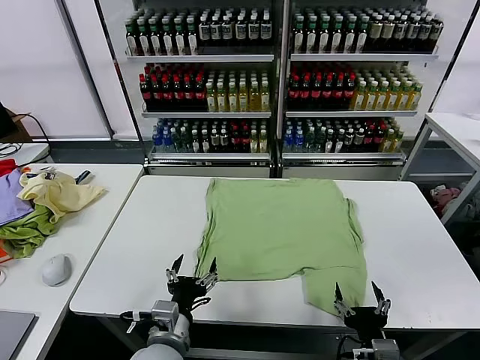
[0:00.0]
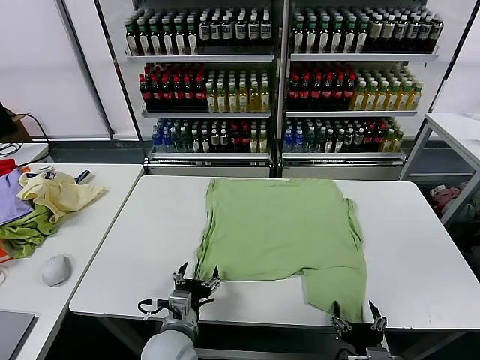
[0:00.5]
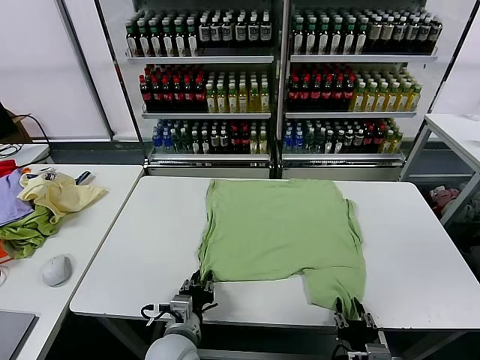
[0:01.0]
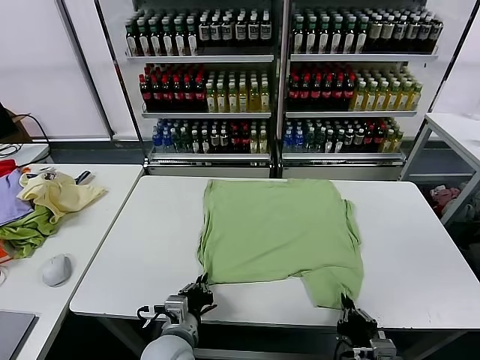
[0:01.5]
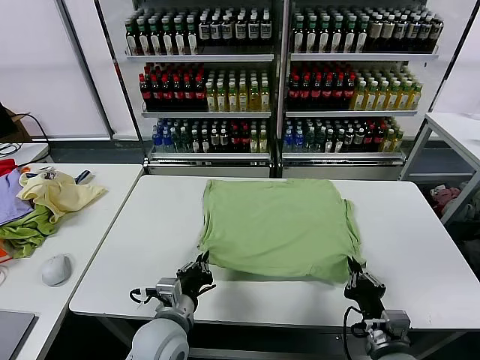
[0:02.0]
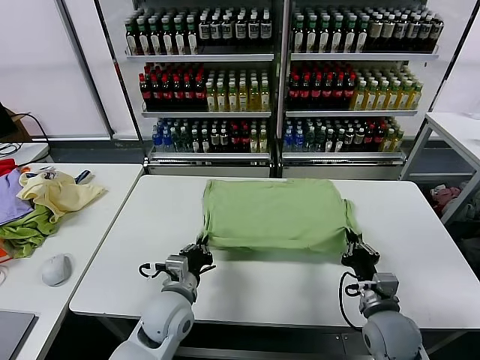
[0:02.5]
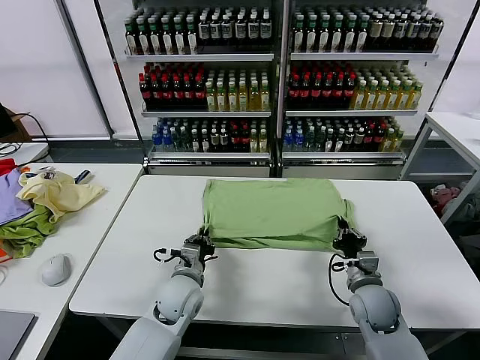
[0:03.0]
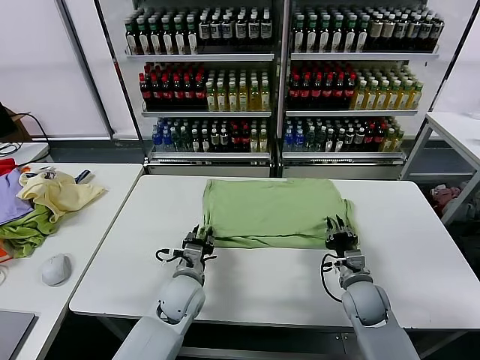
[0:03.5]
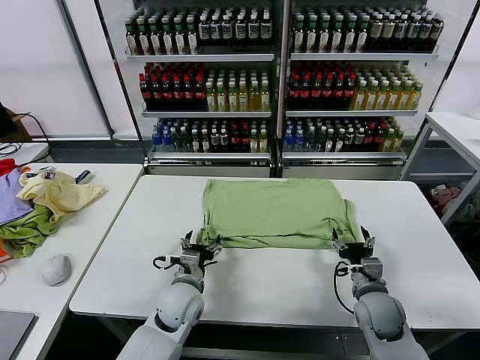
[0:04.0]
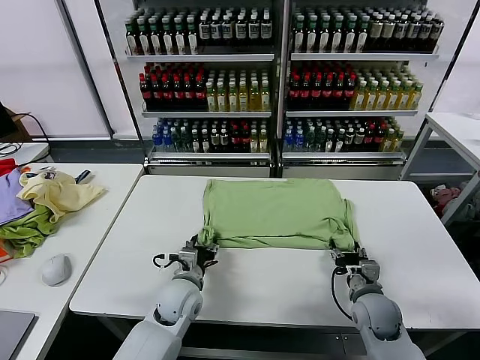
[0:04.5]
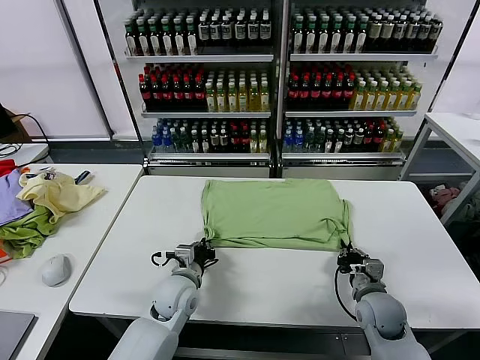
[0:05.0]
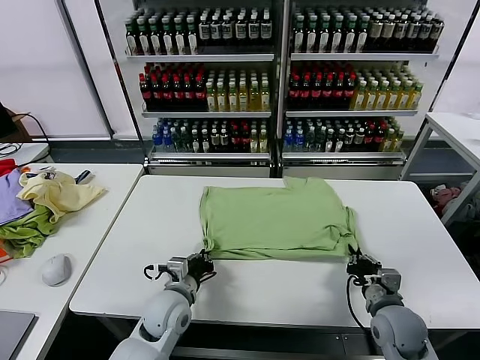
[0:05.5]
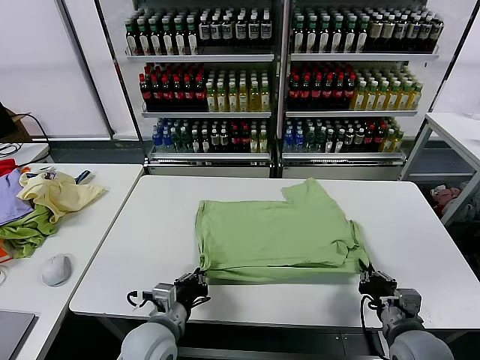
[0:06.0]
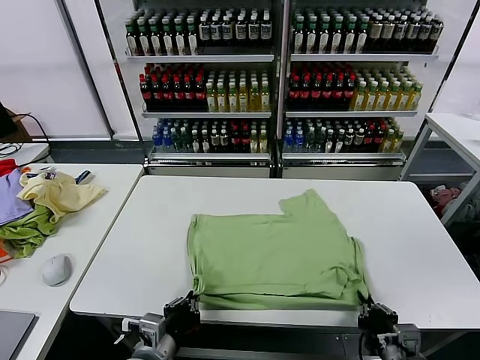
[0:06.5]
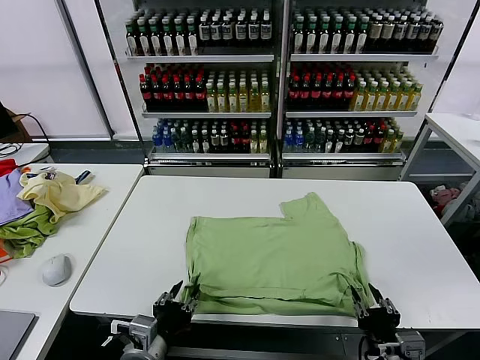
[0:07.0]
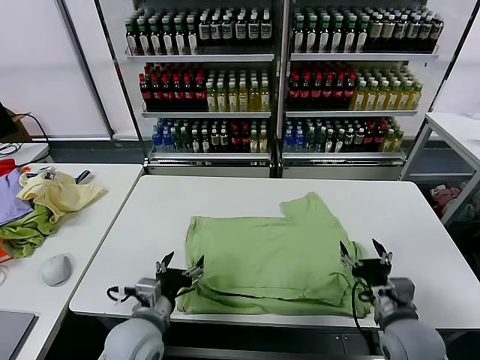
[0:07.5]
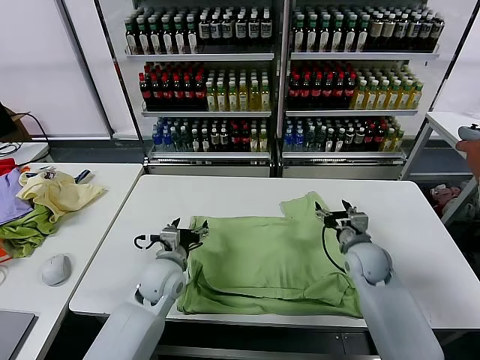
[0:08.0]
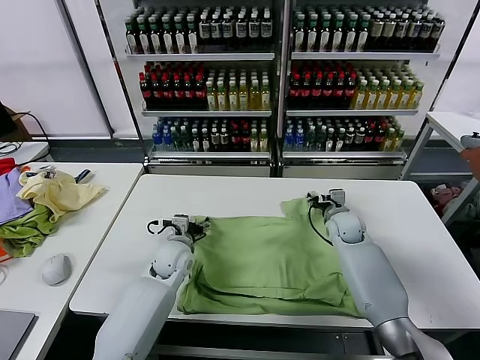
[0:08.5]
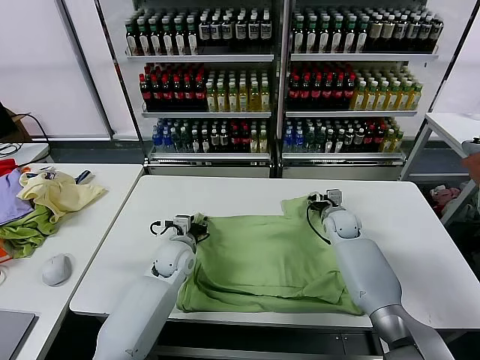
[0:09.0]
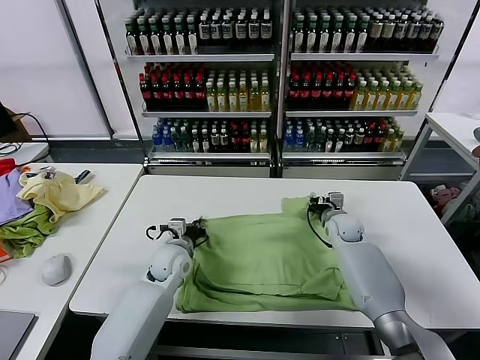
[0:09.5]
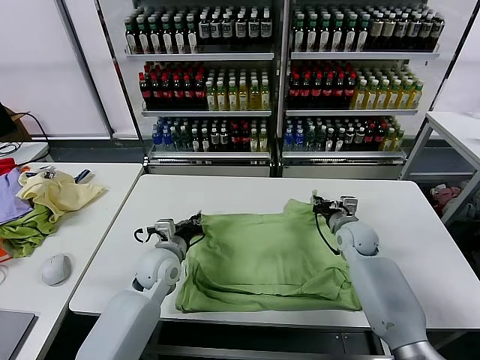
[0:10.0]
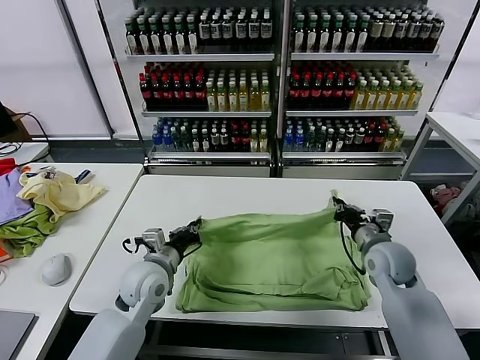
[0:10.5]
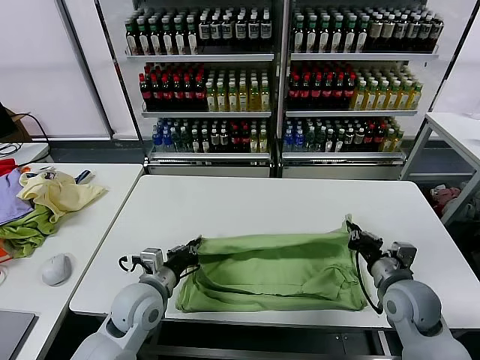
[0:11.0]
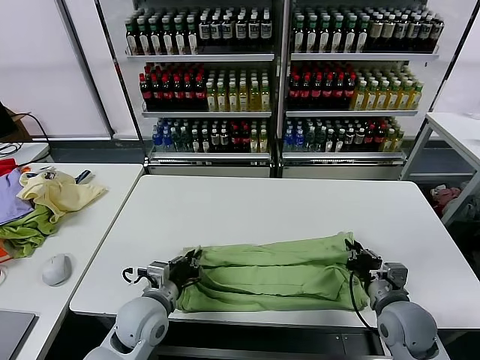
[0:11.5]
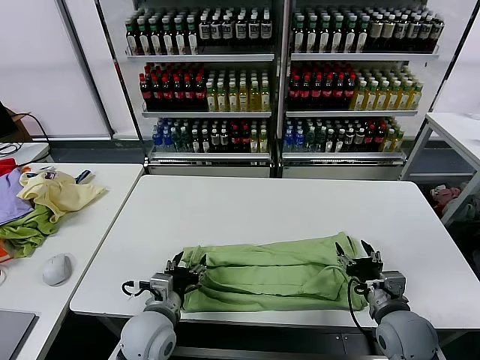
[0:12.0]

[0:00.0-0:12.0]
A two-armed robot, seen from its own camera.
Task of the whole recording: fold and organize the clothes.
Step, 0:00.0 to 0:01.0: use both grippers simultaneously to clamp the lower edge of the clothing fabric.
Step, 0:01.5 to 0:03.5: use both grippers to drag the lower edge of the fabric forward and fold it over the upper edge.
Step, 0:04.0 to 0:07.0: Drag the clothes downward with both gripper.
Step, 0:07.5 to 0:09.0: use both grippers simultaneously to clamp the upper edge of the clothing fabric.
Step, 0:09.5 to 0:11.5: use both grippers to drag the upper edge of the fabric backward and fold it over the lower edge.
0:02.0 to 0:04.0: The right gripper travels forward by some 10 cm, and opens its fingers. The left gripper goes approximately 10 cm forward and downward, and opens.
0:04.0 to 0:06.0: The two grippers go approximately 10 cm backward. The right gripper closes. Meanwhile the left gripper closes up.
0:06.0 to 0:08.0: The left gripper travels forward by approximately 15 cm, and opens up, while the right gripper shifts about 25 cm forward, and opens.
0:08.0 to 0:10.0: The left gripper closes its fingers; the right gripper reaches some 10 cm forward, then returns, and closes its fingers.
0:10.0 to 0:12.0: The right gripper goes some 20 cm backward, and opens. Meanwhile the left gripper heads backward, covering approximately 15 cm, and opens up.

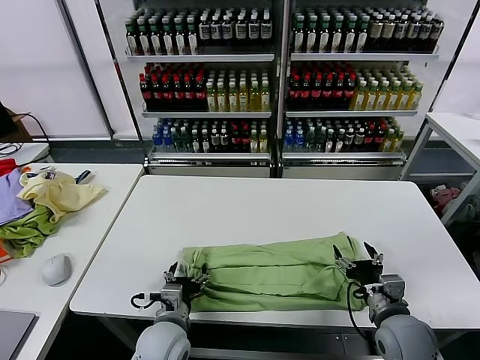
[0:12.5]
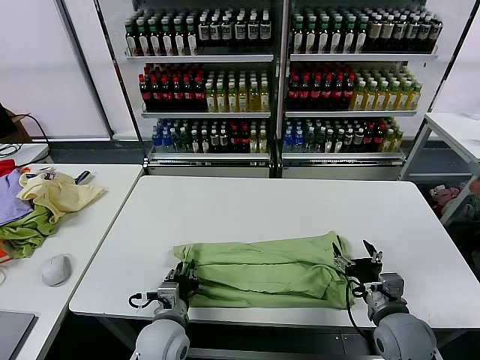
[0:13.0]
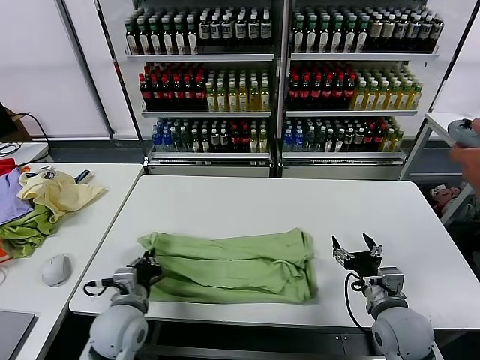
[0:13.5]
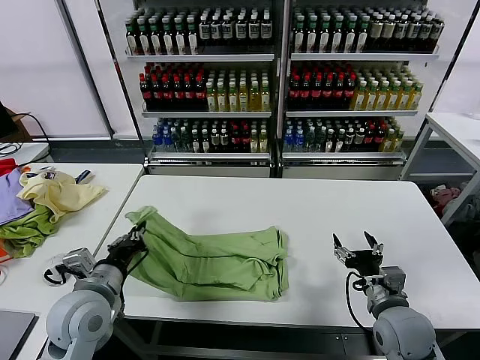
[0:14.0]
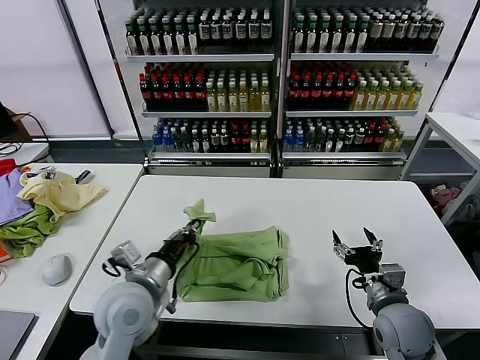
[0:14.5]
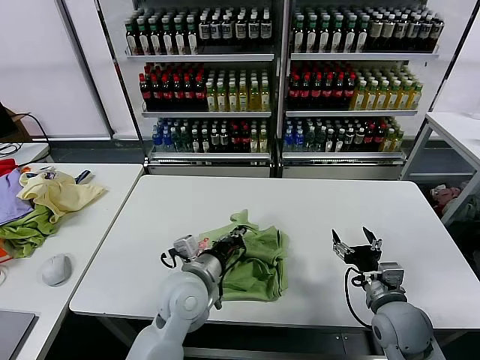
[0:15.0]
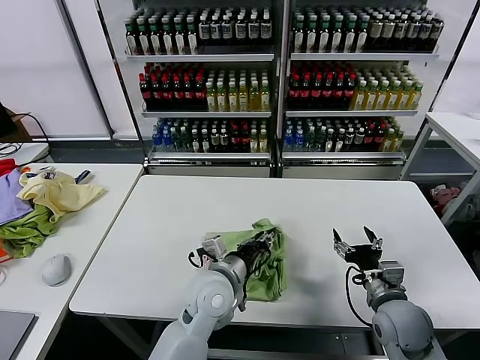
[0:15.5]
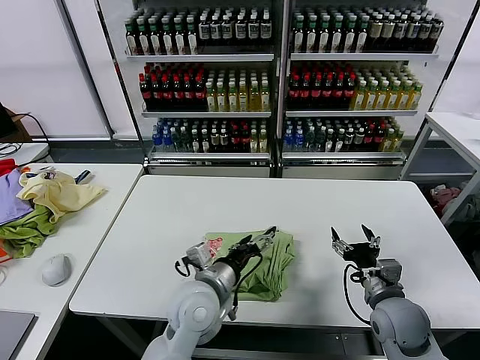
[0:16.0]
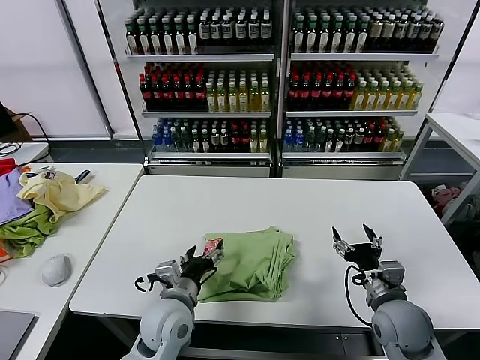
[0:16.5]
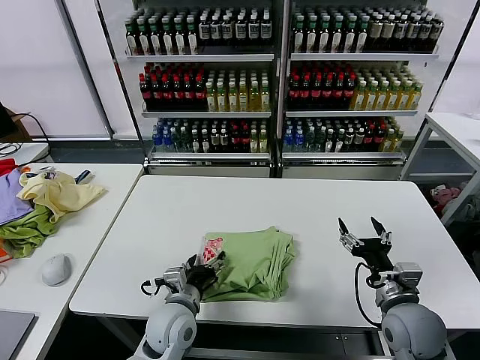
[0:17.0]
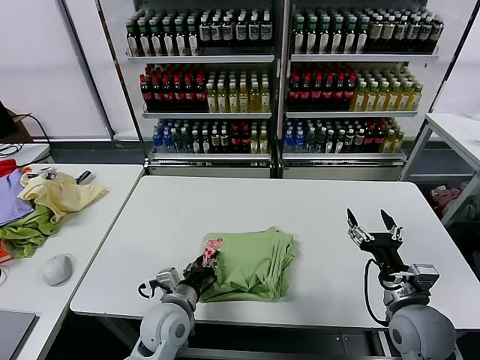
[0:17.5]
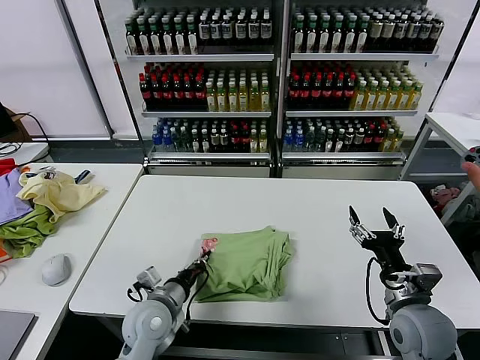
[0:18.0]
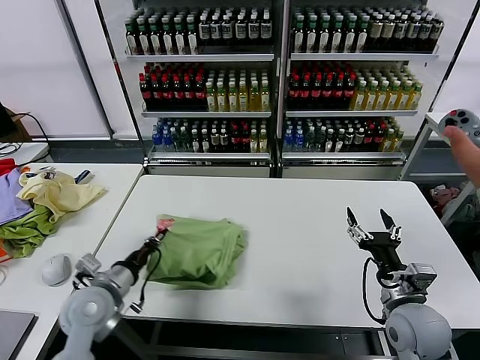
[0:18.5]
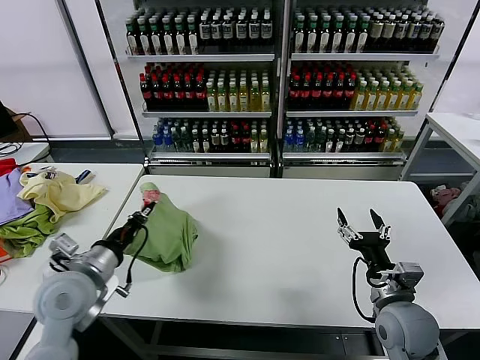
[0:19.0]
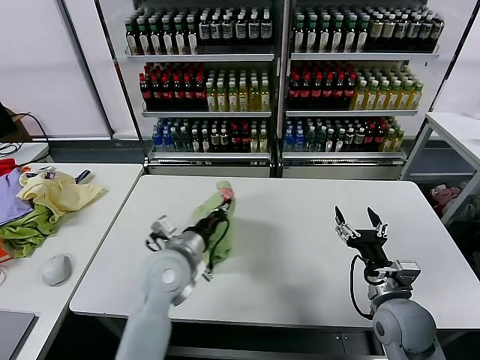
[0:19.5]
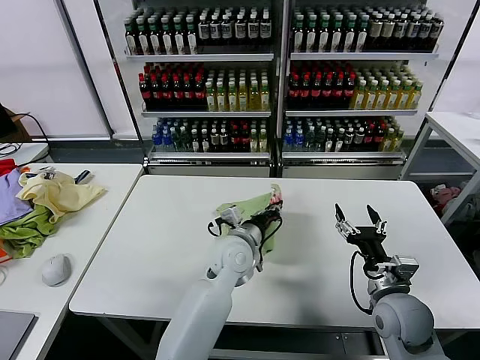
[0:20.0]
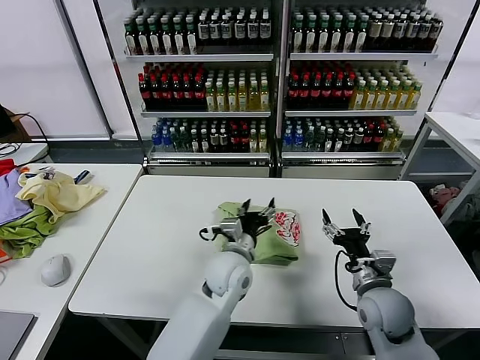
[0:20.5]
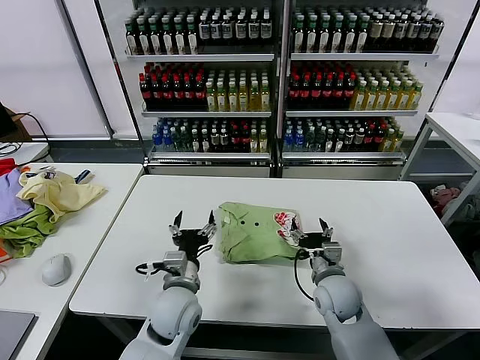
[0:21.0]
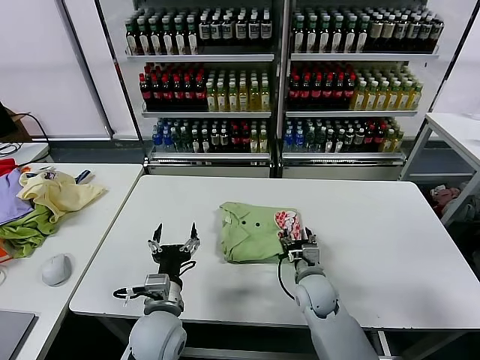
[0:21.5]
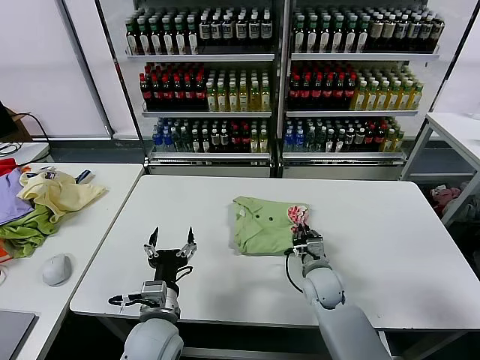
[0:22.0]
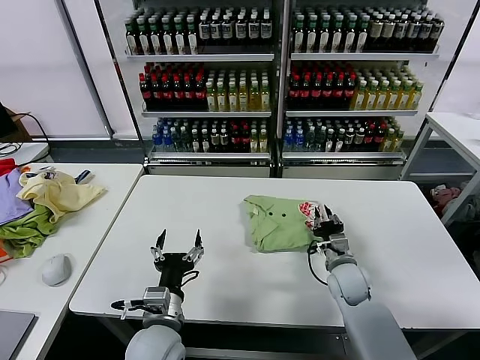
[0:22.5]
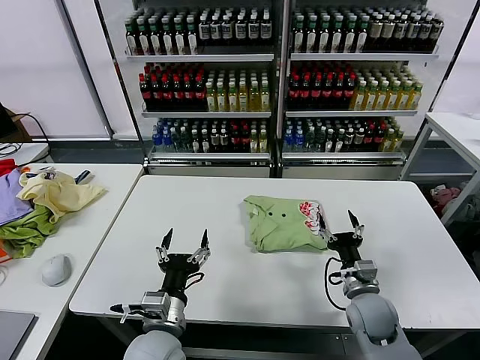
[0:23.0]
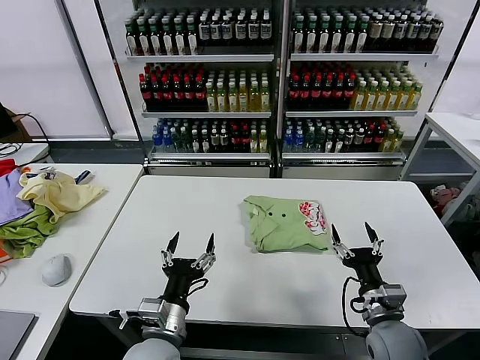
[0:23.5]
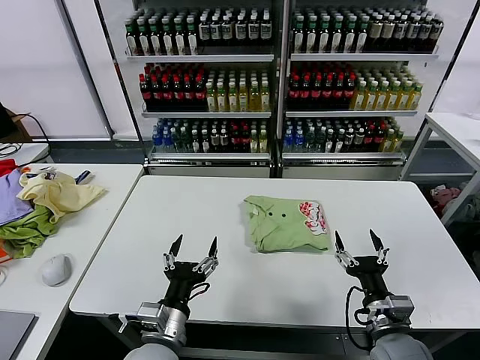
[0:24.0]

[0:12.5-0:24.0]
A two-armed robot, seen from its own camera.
Task of the whole recording: fold and organize the clothes.
Step, 0:13.5 to 0:15.5: use the left gripper to drag the left edge of the fabric to the left and folds it over the right edge.
Step, 0:16.0 to 0:20.0: Flip the folded clothes over with left gripper.
Step, 0:20.5 to 0:22.5: Drag the clothes to the center of the table.
0:12.5 to 0:14.5: The left gripper travels upward by some 10 cm, and closes.
0:14.5 to 0:16.5: The left gripper goes about 10 cm downward and to the right, and opens its fingers.
0:16.5 to 0:18.5: The left gripper moves to the left, some 15 cm, and closes up.
0:18.5 to 0:20.0: The left gripper moves to the right and forward, roughly 30 cm.
0:20.0 to 0:22.0: The right gripper goes approximately 20 cm to the left, forward and downward, and closes its fingers, while the left gripper travels backward and to the left by about 20 cm, and opens.
0:22.0 to 0:24.0: The right gripper goes roughly 20 cm backward and to the right, and opens. The left gripper travels backward by roughly 5 cm.

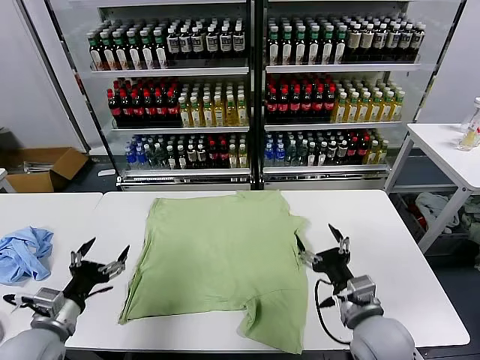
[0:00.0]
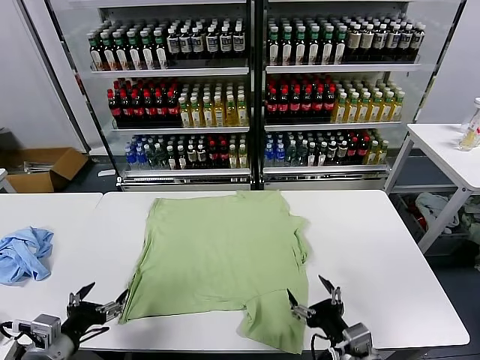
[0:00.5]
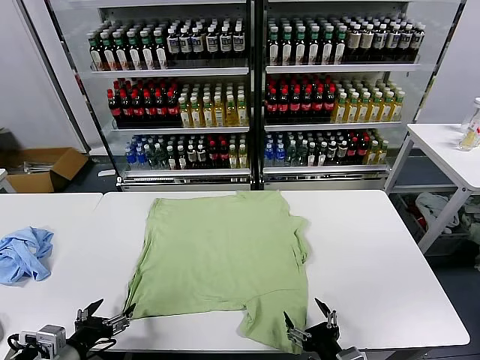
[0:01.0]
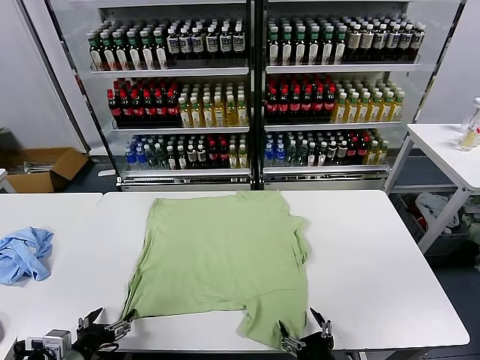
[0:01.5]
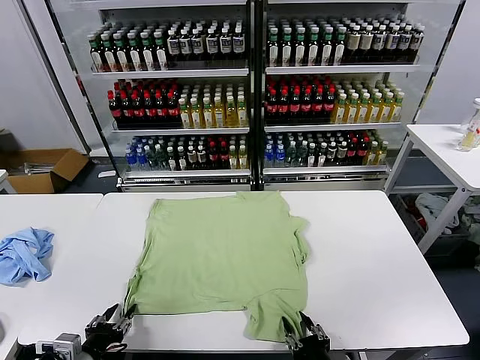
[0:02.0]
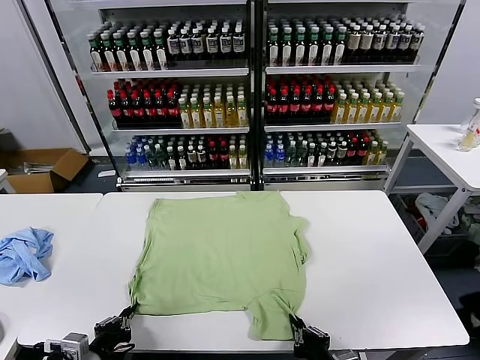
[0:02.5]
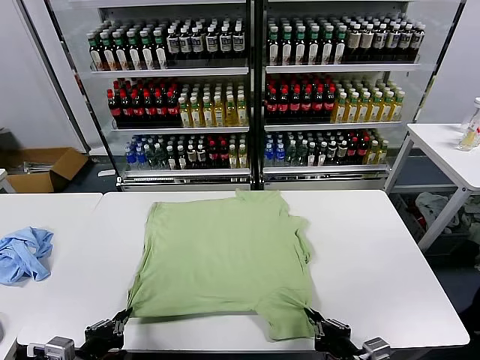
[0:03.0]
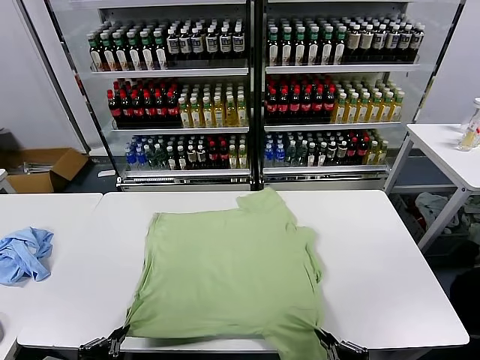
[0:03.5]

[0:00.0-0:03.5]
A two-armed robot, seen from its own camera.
Task of the whole recording: fold and organize the clothes.
Step, 0:00.0 to 0:02.5: use both grippers simultaneously to clamp the lower edge of the clothing fabric.
0:02.0 to 0:03.5: The left gripper moves upward and backward, some 10 cm, and closes its fingers. The right gripper is displaced upward and to the right by some 10 cm, and closes up.
